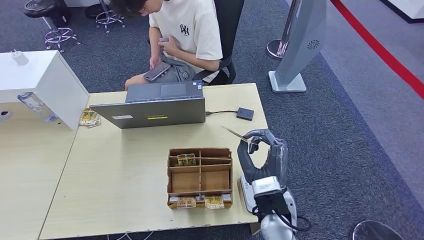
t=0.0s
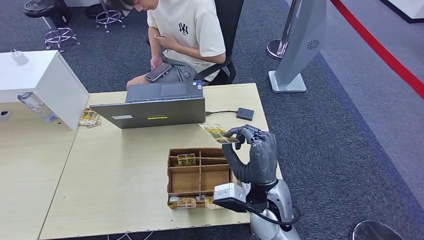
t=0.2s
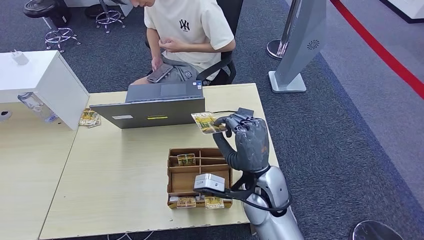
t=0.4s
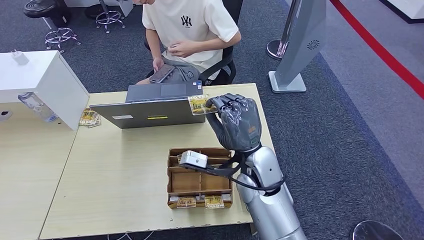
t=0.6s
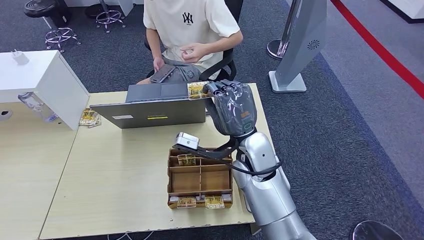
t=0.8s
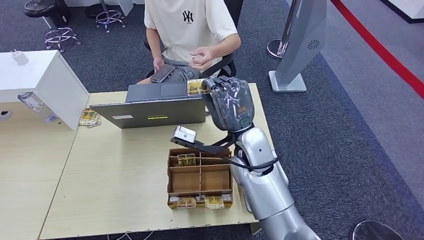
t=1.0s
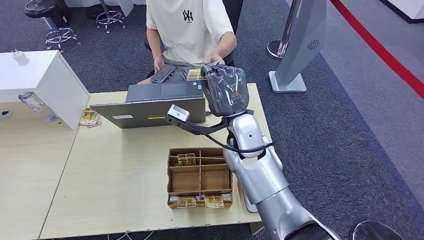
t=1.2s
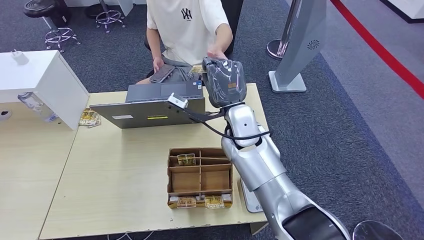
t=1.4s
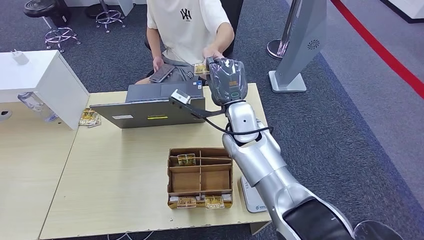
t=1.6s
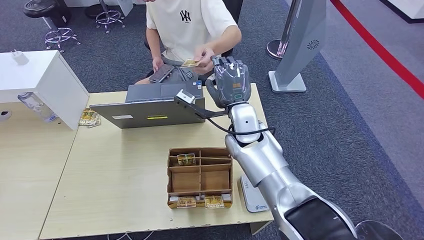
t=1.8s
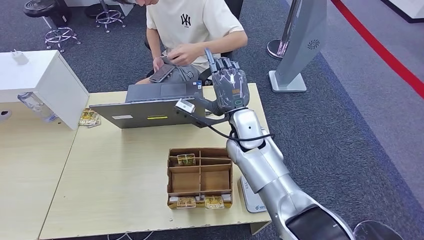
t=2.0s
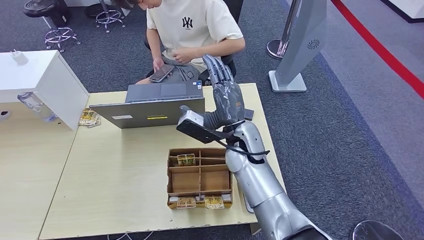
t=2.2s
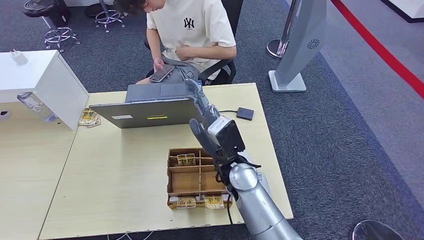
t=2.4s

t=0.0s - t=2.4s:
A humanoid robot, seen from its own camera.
Step, t=0.0s - t=2.4s: Hand the room key to the person.
t=0.0s - t=1.2s: The right hand goes about 15 cm forward, upward and to the left.
t=1.2s - t=2.4s: The right hand shifts roughly 5 cm downward.
